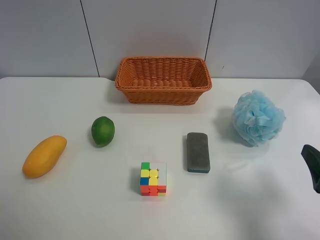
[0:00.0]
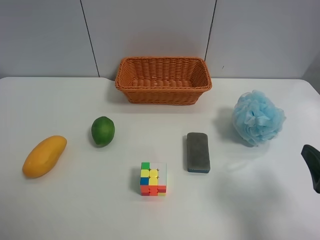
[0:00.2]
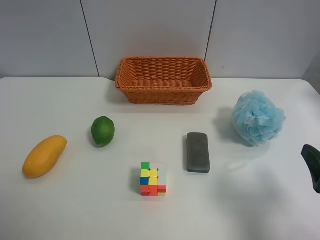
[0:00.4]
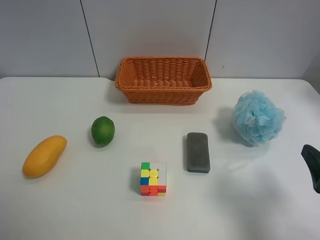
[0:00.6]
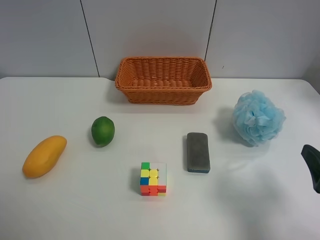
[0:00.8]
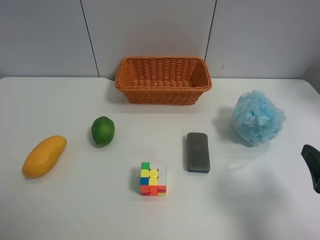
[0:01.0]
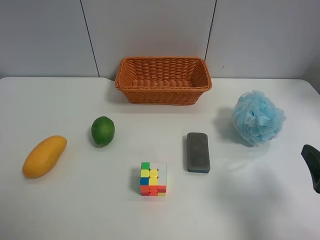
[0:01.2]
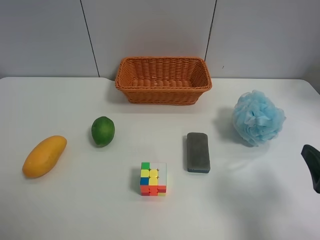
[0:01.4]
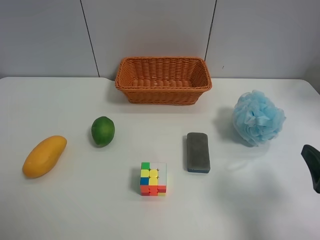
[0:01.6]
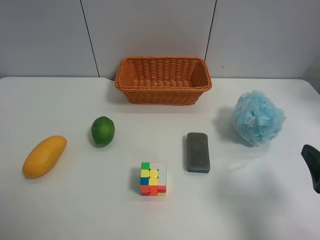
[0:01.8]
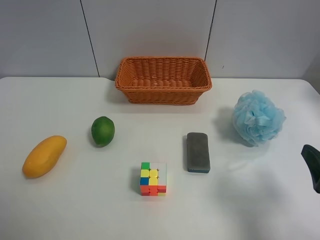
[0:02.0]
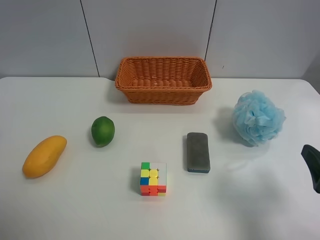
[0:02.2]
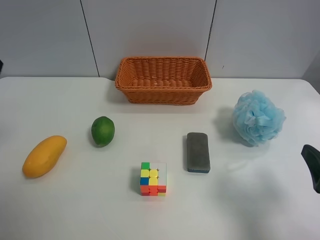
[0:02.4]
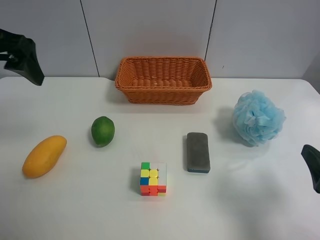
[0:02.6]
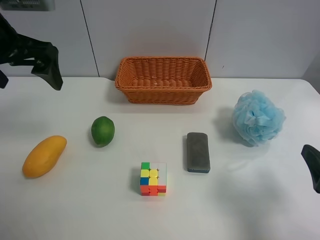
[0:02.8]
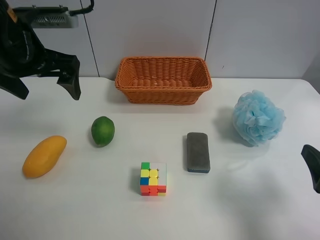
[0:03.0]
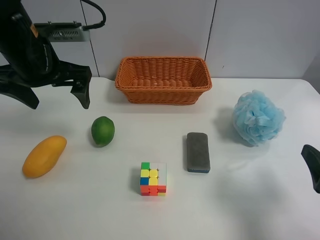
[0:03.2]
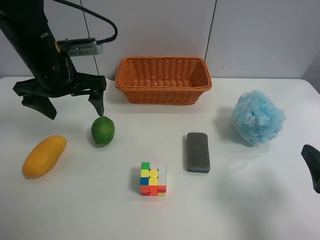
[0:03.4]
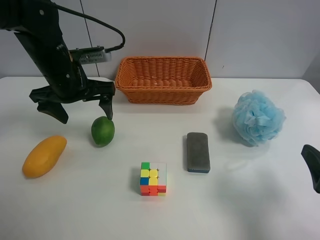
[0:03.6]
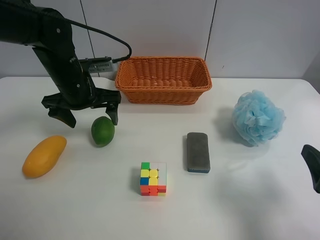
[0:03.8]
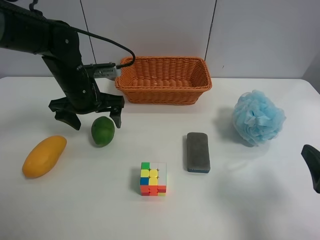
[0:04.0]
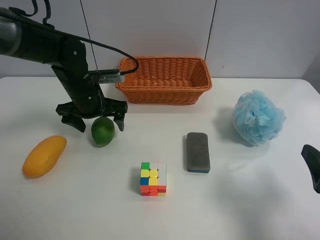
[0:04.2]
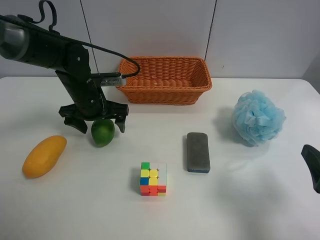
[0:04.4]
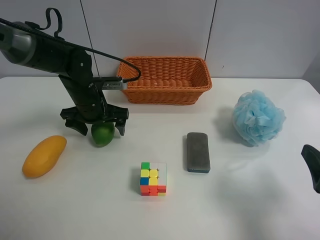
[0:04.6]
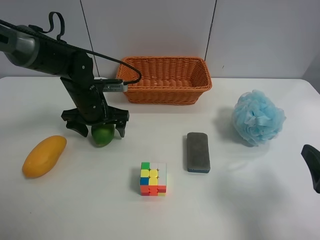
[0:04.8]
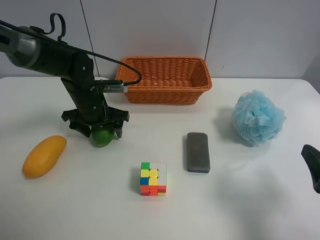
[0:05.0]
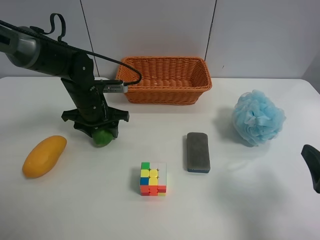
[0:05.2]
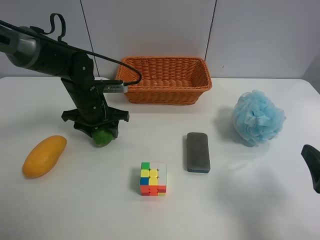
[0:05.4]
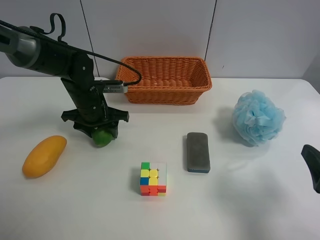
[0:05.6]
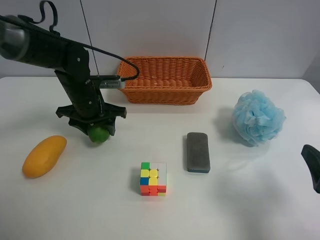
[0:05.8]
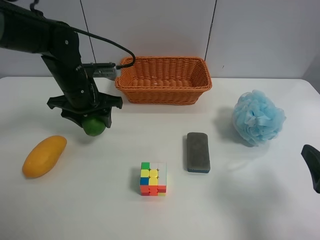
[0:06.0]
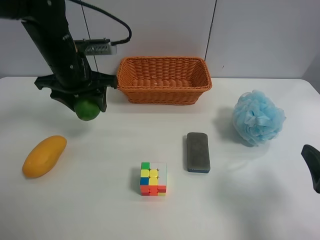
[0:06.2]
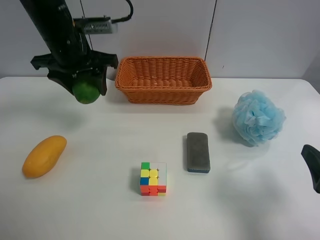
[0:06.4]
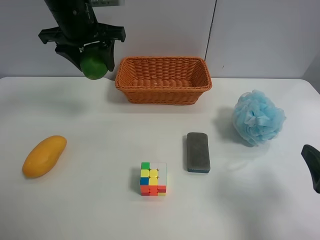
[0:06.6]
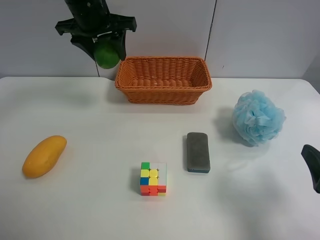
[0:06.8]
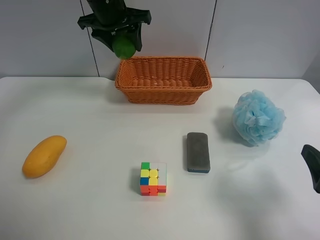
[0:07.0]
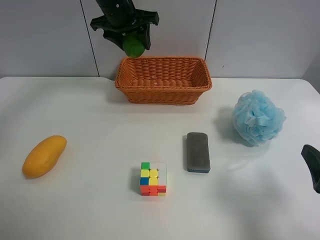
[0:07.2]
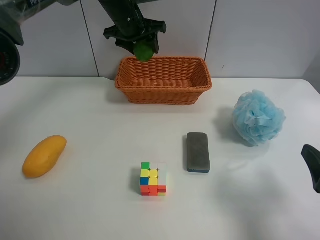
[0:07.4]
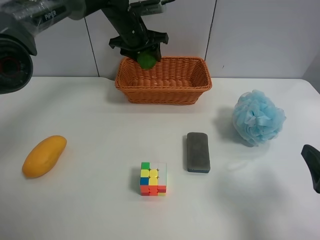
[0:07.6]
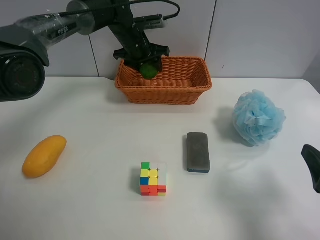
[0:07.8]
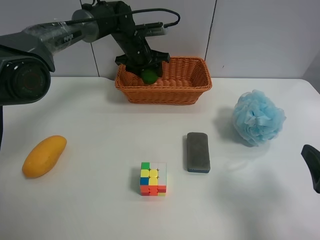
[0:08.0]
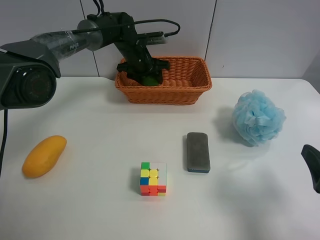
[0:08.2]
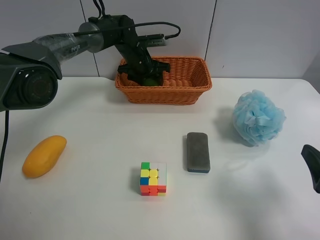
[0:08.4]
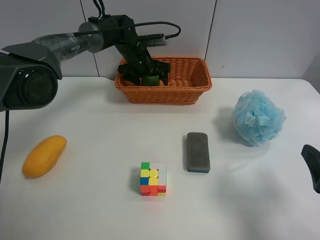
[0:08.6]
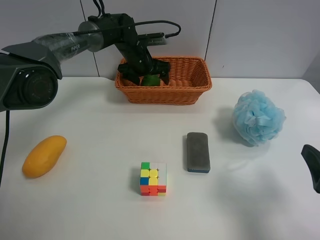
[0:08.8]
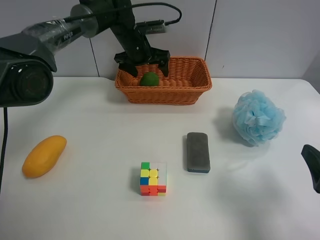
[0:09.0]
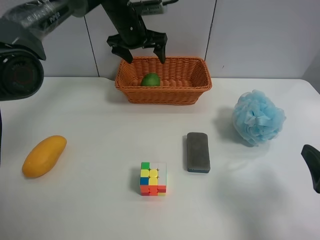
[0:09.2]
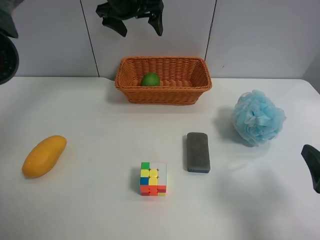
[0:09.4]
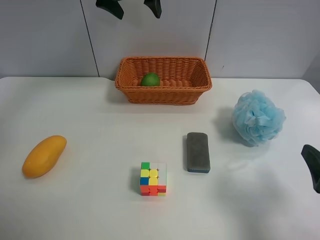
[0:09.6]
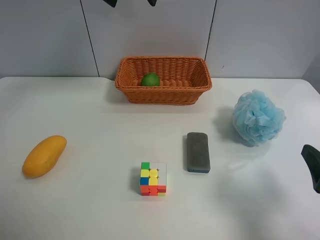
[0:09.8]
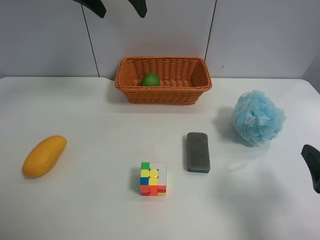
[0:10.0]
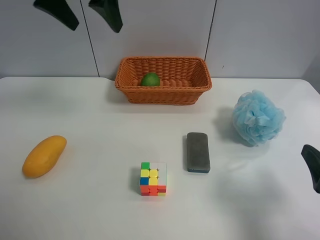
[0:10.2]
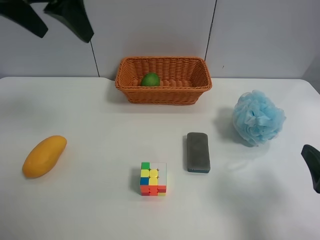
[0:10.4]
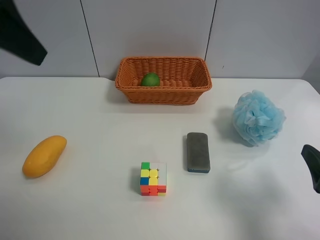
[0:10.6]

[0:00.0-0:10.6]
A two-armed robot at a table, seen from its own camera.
Task of the whole recording: Randomly grab green lemon or mangoes from the table and put them in a basket.
Step, 0:00.0 to 0:05.6: Grasp the Lemon with the left gripper.
Step, 0:05.8 to 0:08.8: Place the Lemon into the basket with the left gripper.
0:01.6 to 0:03.0: The left gripper is displaced forward by roughly 25 cm.
0:03.0 to 0:04.6: The left gripper goes about 20 cm downward and forward.
0:04.6 to 0:06.0: The left gripper closes.
0:06.0 to 0:07.6: The left gripper goes some 20 cm forward, upward and to the right.
0:07.6 to 0:09.0: The left gripper is displaced downward by some 5 cm, and opens up.
0:09.0 to 0:10.6: The left gripper moves backward, upward and to the left, some 40 cm.
